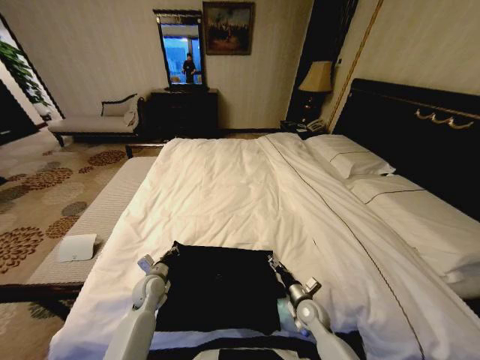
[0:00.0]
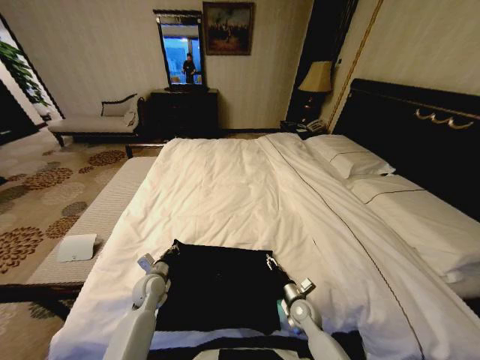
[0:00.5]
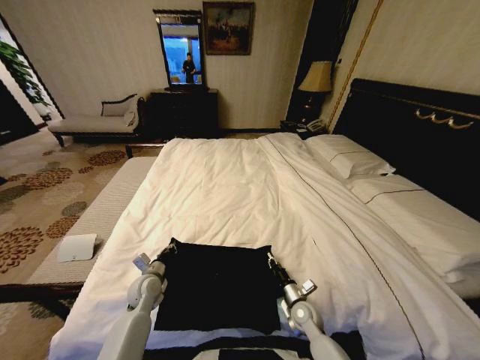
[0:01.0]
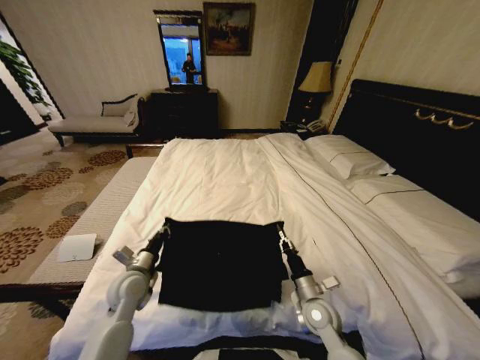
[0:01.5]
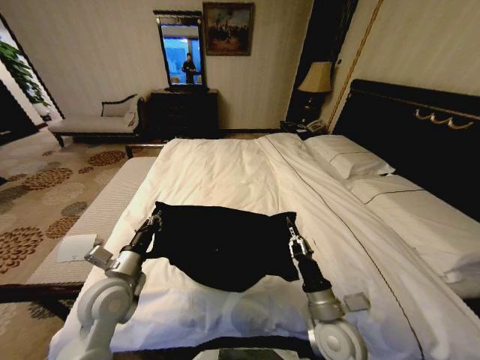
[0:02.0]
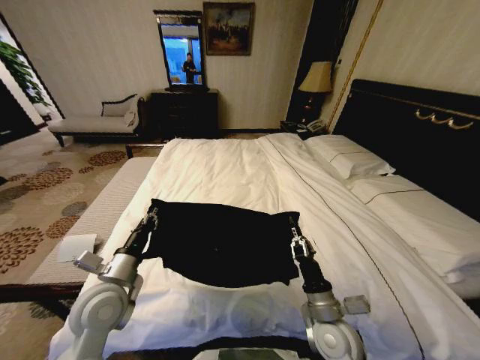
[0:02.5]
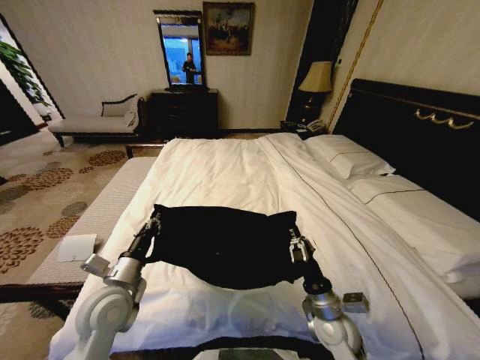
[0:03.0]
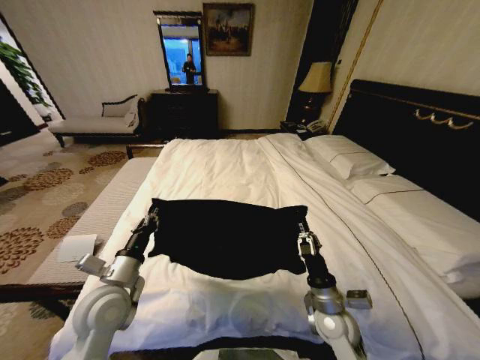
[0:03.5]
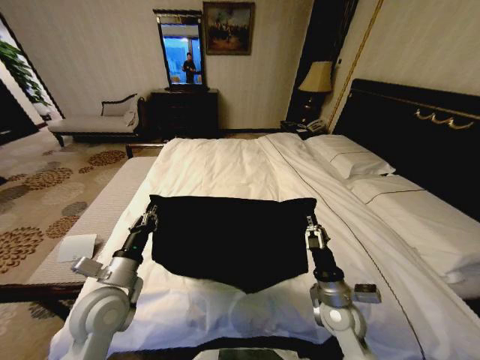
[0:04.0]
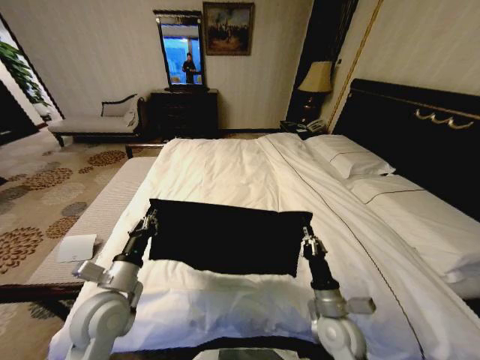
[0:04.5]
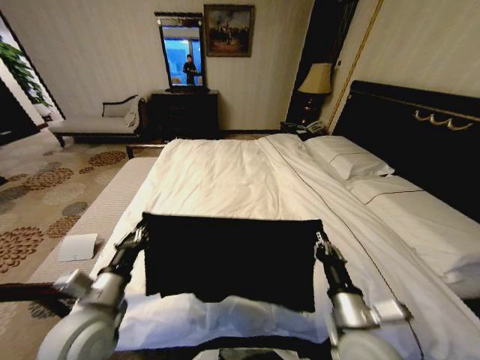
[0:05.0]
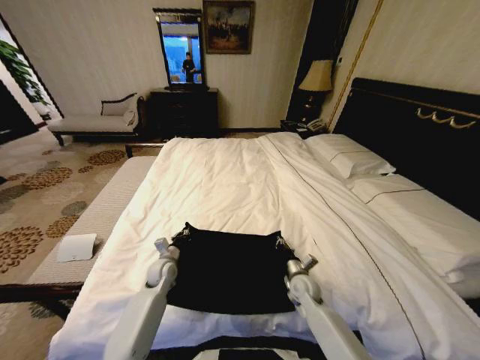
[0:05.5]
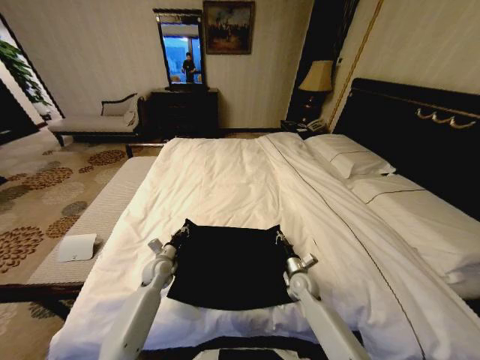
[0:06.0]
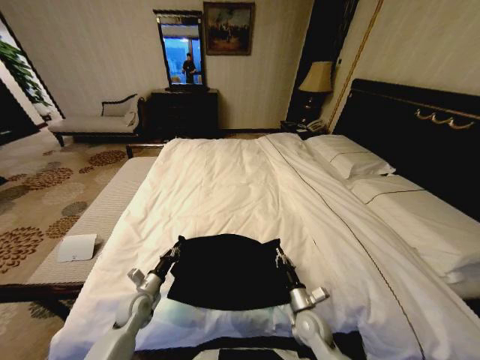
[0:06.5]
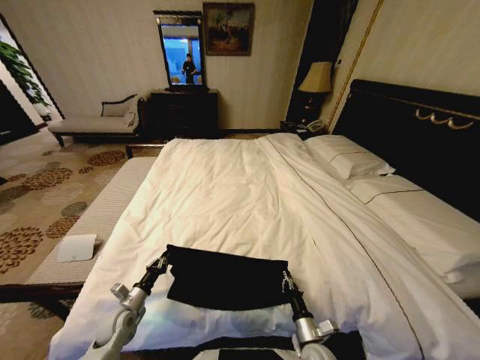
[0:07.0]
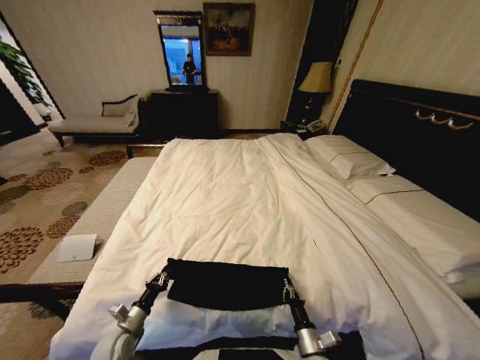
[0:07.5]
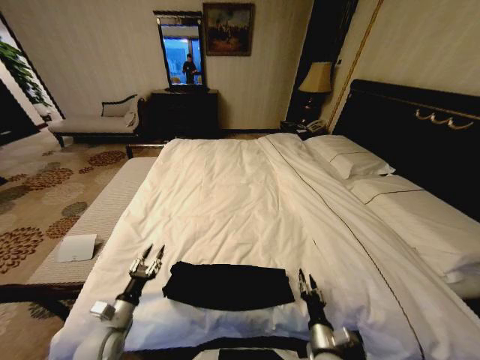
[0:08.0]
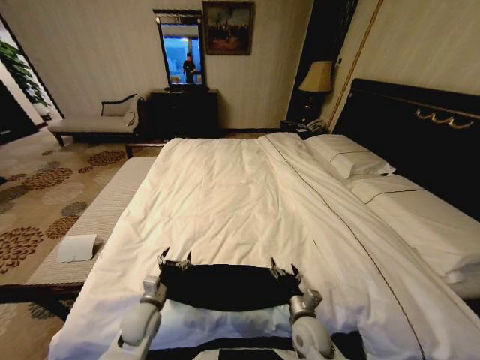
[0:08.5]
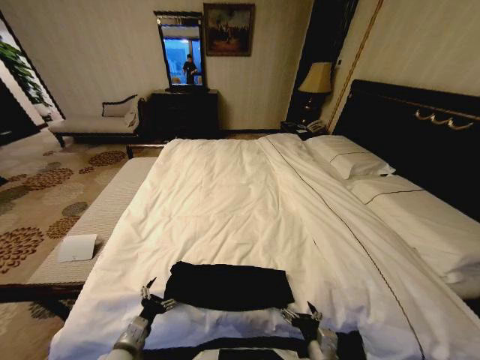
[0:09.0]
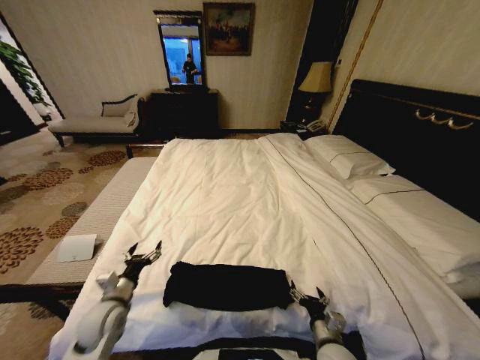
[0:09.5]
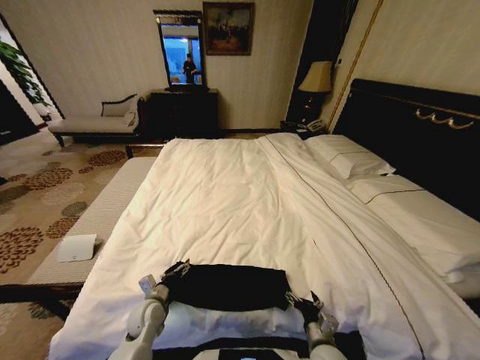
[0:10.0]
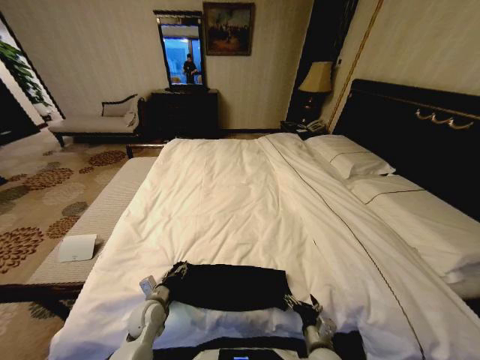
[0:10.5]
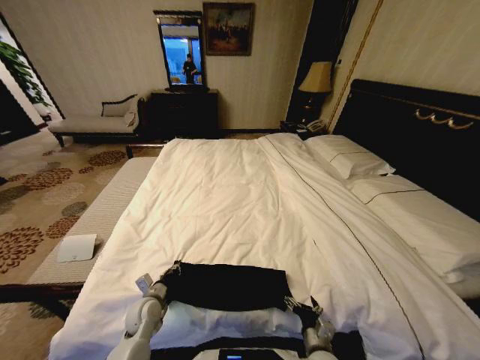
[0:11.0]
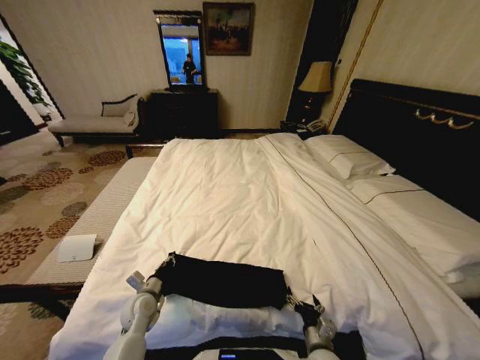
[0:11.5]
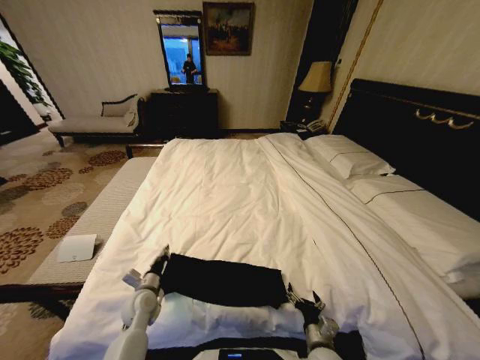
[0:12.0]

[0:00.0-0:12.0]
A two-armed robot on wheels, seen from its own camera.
Task of the whole recording: Fold the clothes on the bed.
0:00.0 to 0:02.0: Both grippers travel together upward and backward, some 20 cm. The right gripper closes.
0:02.0 to 0:04.0: The right gripper ends up roughly 5 cm from where it was.
0:04.0 to 0:06.0: The grippers both shift downward and forward by some 20 cm.
0:06.0 to 0:08.0: Both grippers travel together backward, about 20 cm. The right gripper opens up. Meanwhile the left gripper opens.
0:08.0 to 0:10.0: The left gripper moves forward and backward over some 10 cm, changing direction 2 times, and opens up. The right gripper goes forward and backward, approximately 10 cm each way, reversing 2 times, and opens up.
0:10.0 to 0:12.0: The left gripper closes up.

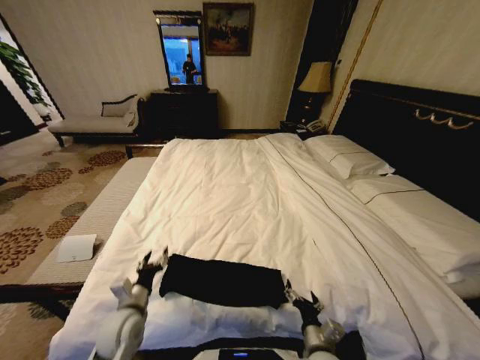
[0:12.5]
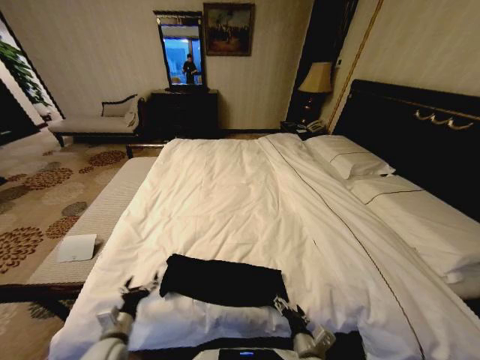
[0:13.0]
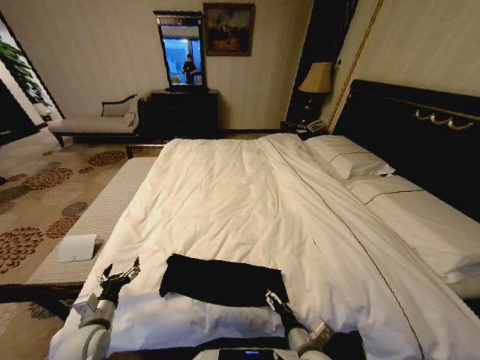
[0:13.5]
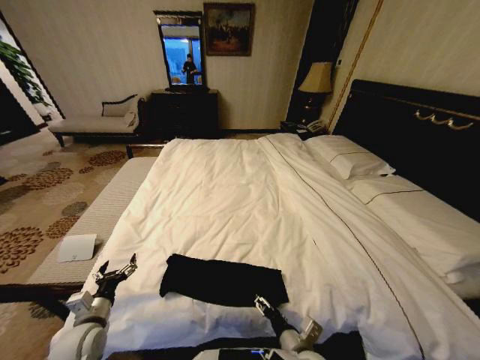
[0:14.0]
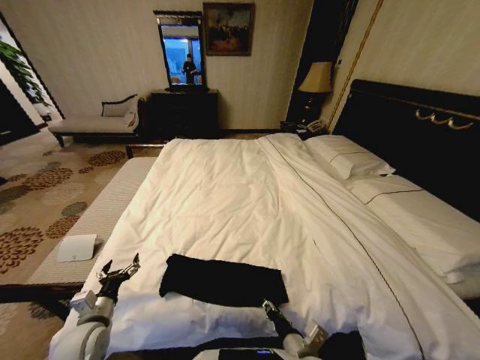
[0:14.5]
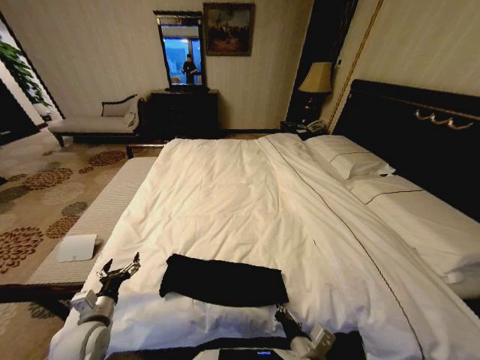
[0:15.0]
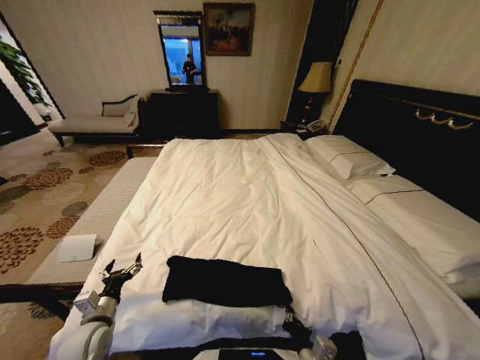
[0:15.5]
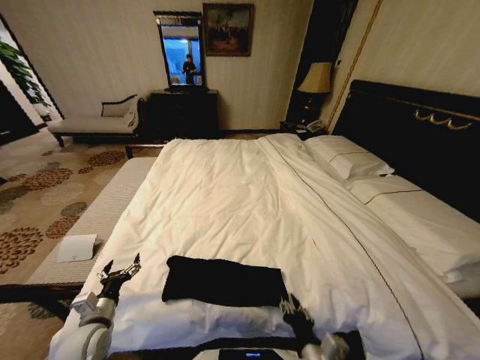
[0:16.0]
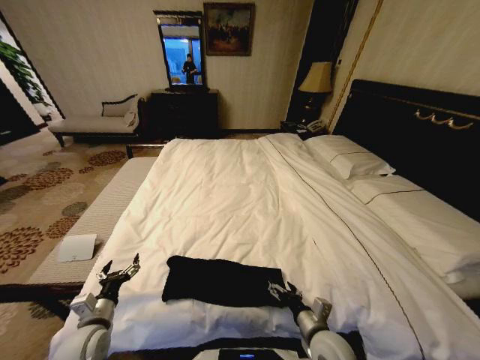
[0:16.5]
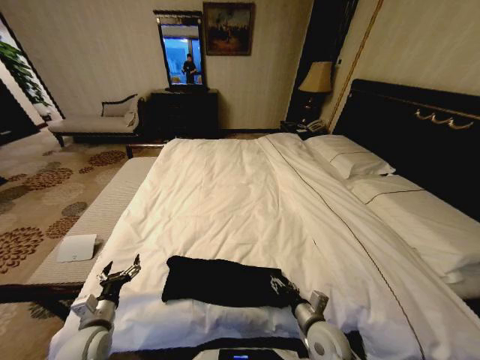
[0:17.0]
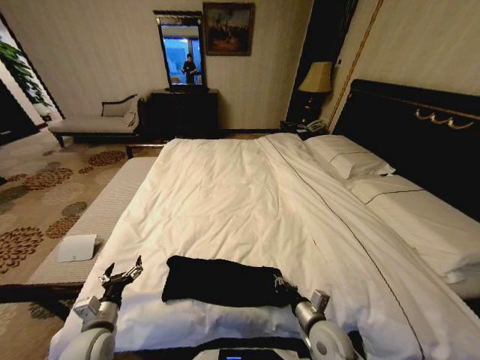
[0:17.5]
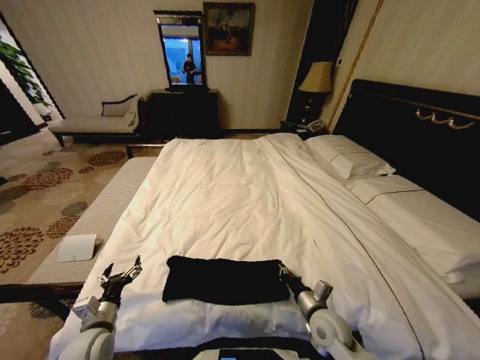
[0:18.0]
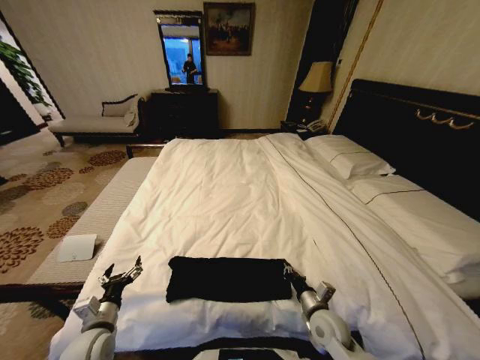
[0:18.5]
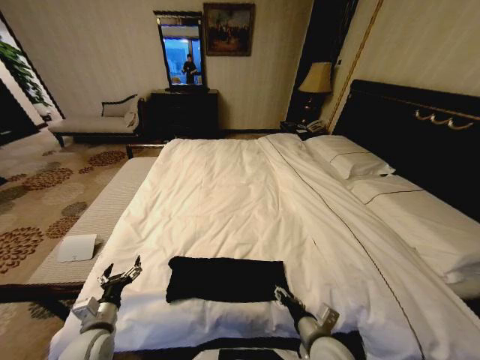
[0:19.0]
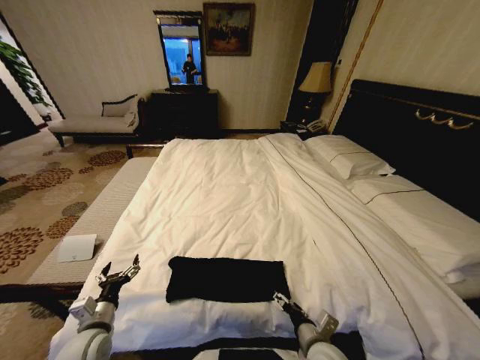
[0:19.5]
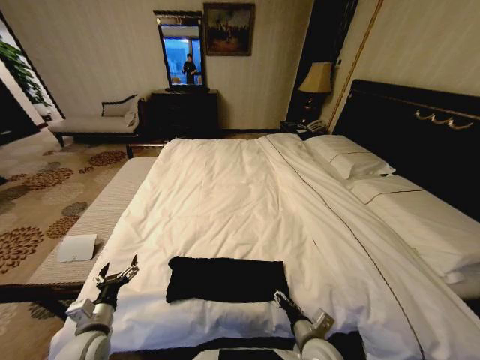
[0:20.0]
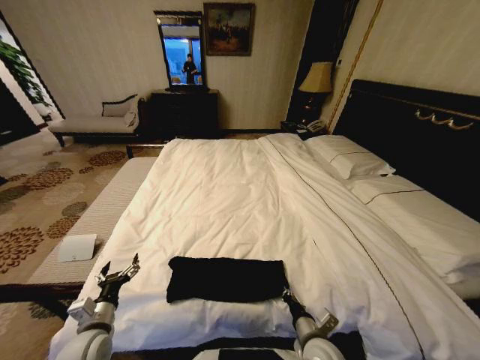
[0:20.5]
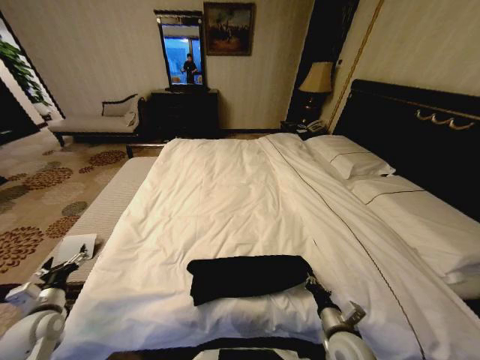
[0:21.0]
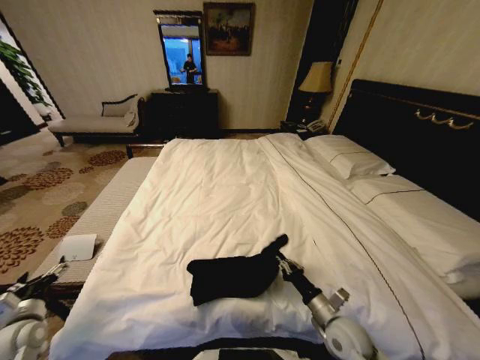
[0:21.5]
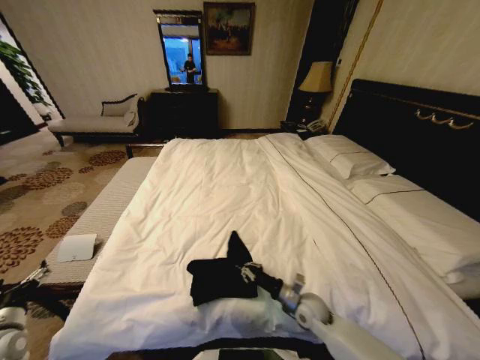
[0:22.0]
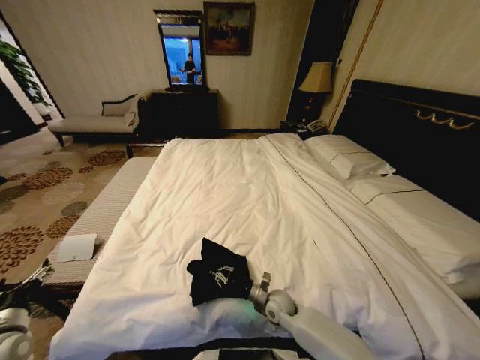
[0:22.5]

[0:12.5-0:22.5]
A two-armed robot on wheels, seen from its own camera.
Task of the whole recording: Fold the clothes on the bed.
0:12.5 to 0:14.5: The right gripper goes about 10 cm upward and to the left, and closes its fingers. The left gripper goes roughly 10 cm to the left.
0:14.5 to 0:16.5: The right gripper travels to the right and forward by approximately 10 cm, and opens up.
0:16.5 to 0:18.5: The right gripper moves forward, some 5 cm, and closes up.
0:18.5 to 0:20.5: The right gripper heads backward and to the left, covering approximately 10 cm, and opens, then closes once more.
0:20.5 to 0:22.5: The right gripper moves forward, downward and to the left, about 15 cm. The left gripper heads to the left and upward, covering roughly 15 cm.

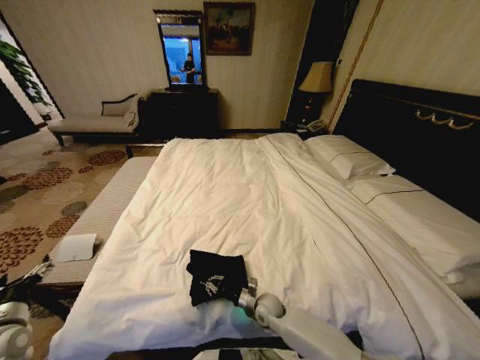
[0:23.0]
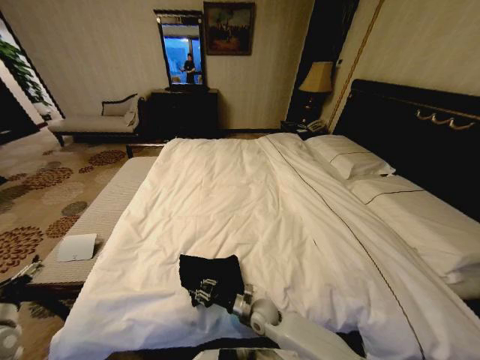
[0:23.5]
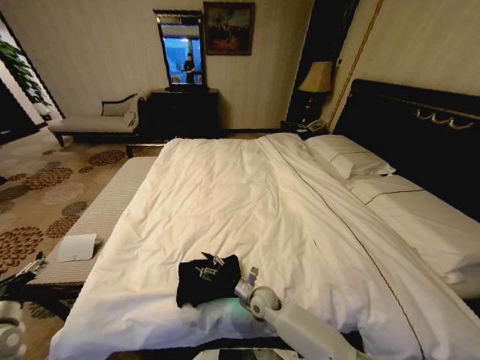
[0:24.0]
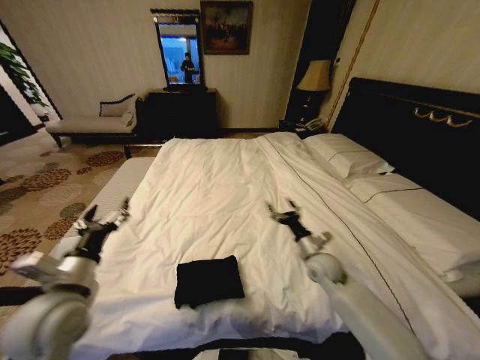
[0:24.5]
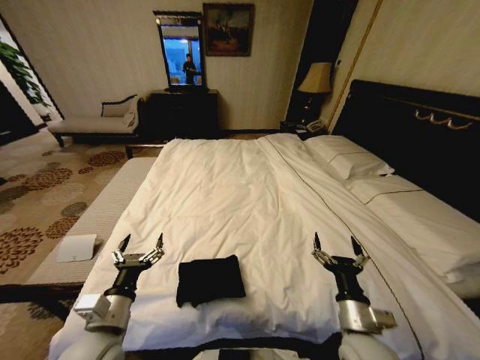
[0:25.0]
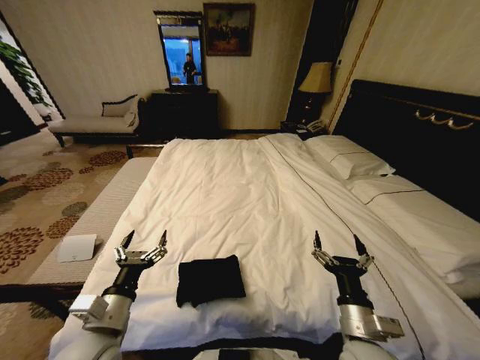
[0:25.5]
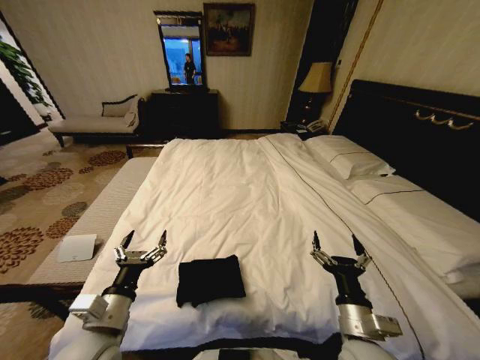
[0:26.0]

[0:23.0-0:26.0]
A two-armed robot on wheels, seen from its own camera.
Task of the whole recording: Fold the clothes on the bed.
0:23.0 to 0:24.5: The left gripper shifts approximately 20 cm to the right and upward. The right gripper shifts about 25 cm to the right, upward and forward, and opens up.
0:24.5 to 0:26.0: The right gripper moves backward, some 20 cm. Meanwhile the left gripper is displaced to the right, downward and backward by roughly 10 cm.
